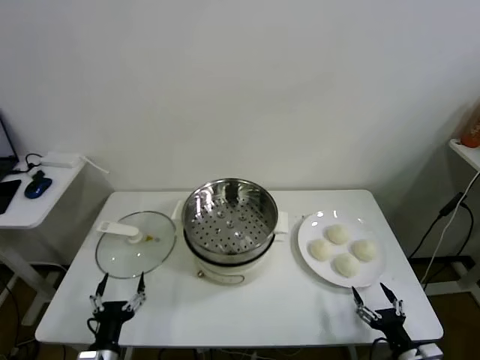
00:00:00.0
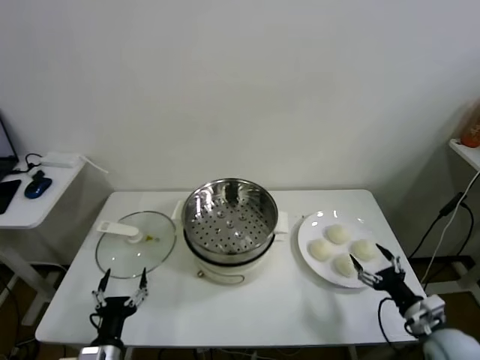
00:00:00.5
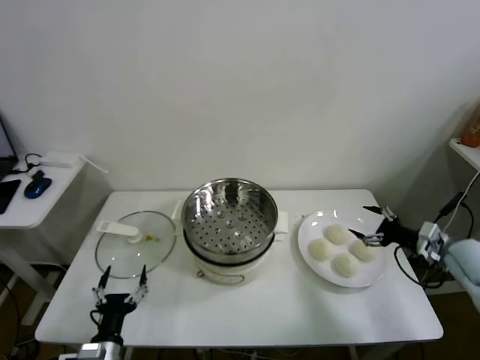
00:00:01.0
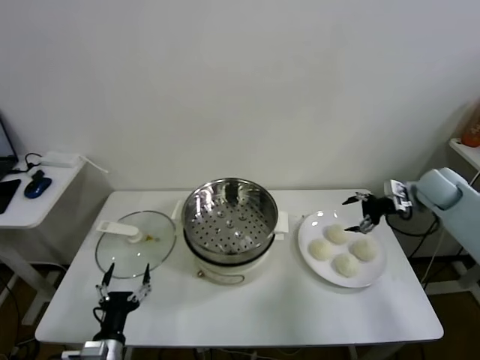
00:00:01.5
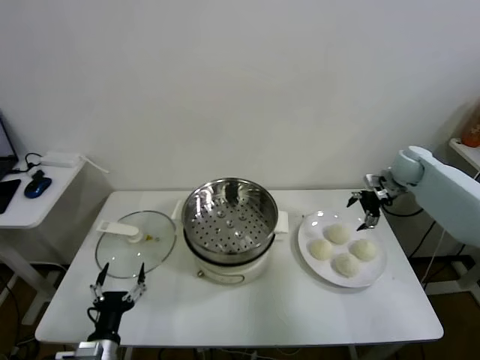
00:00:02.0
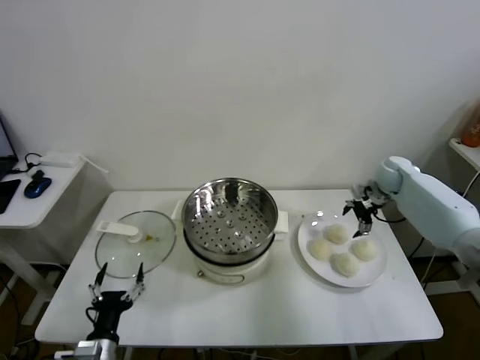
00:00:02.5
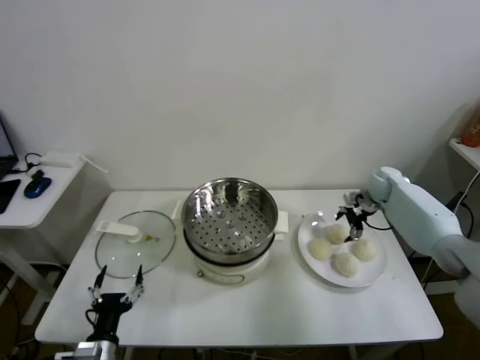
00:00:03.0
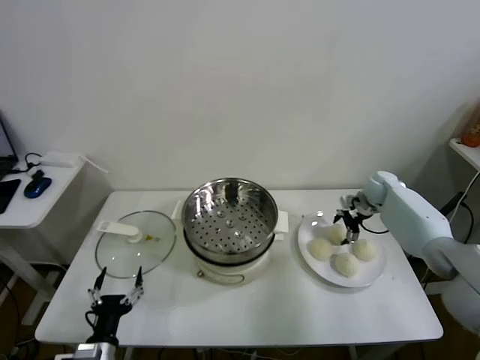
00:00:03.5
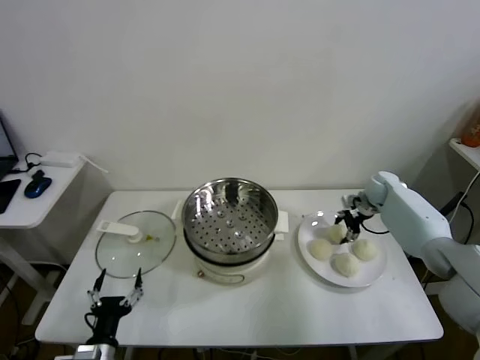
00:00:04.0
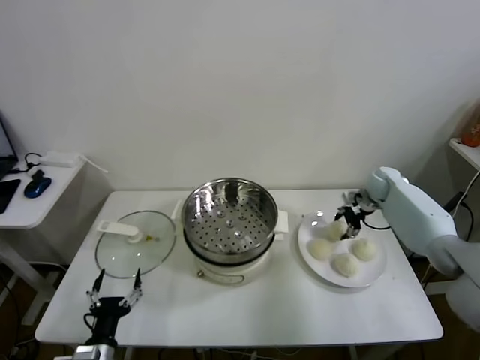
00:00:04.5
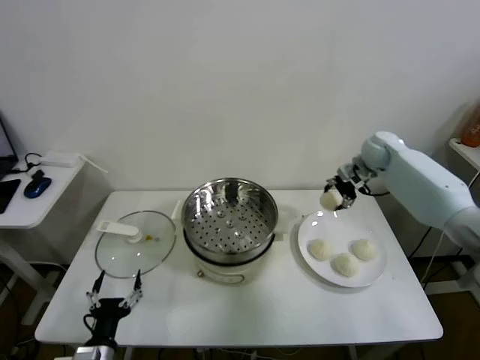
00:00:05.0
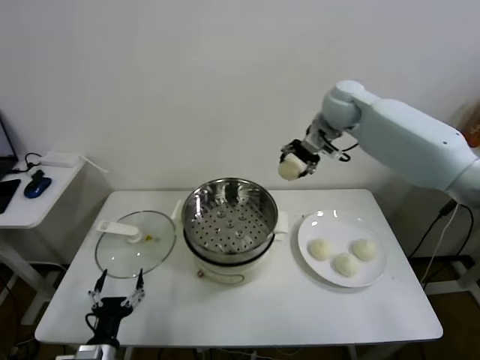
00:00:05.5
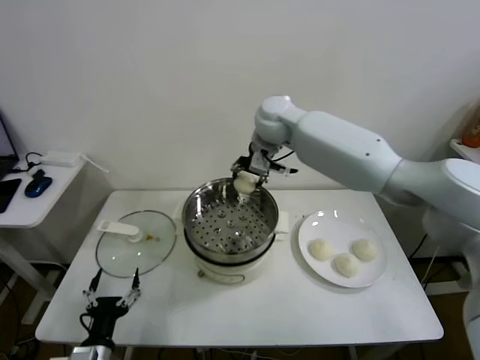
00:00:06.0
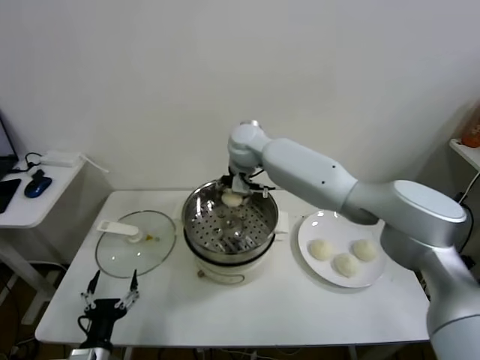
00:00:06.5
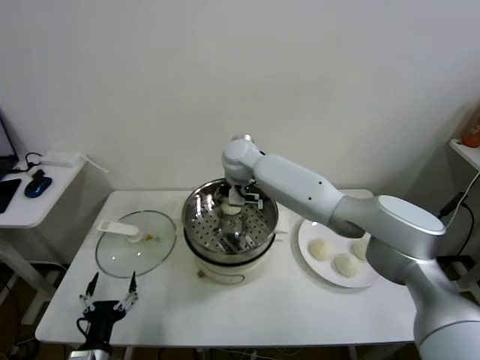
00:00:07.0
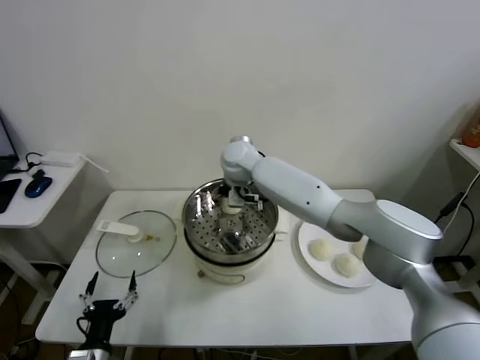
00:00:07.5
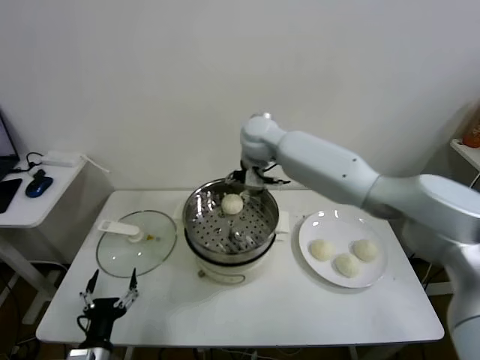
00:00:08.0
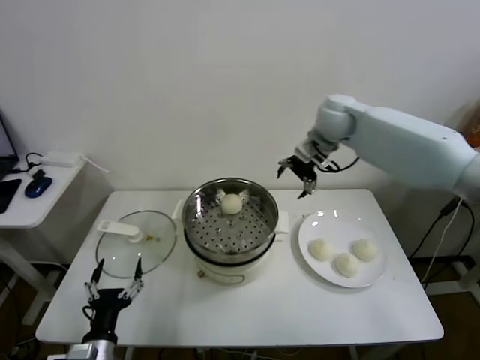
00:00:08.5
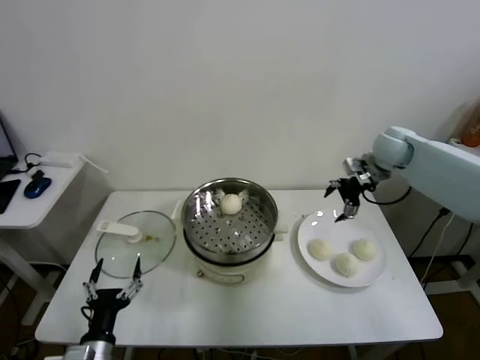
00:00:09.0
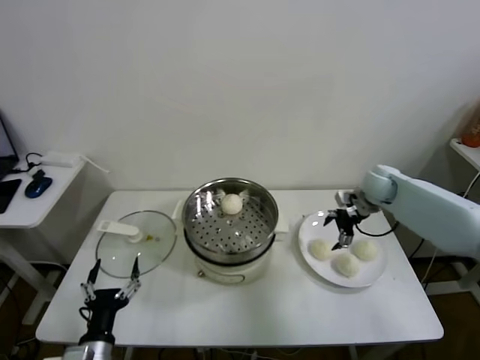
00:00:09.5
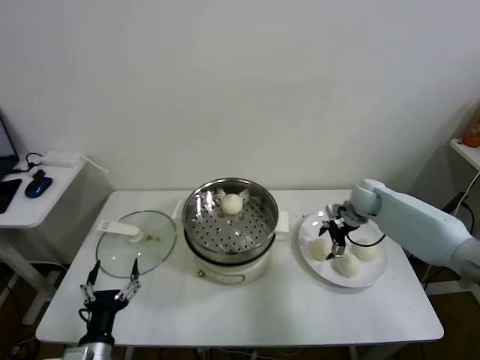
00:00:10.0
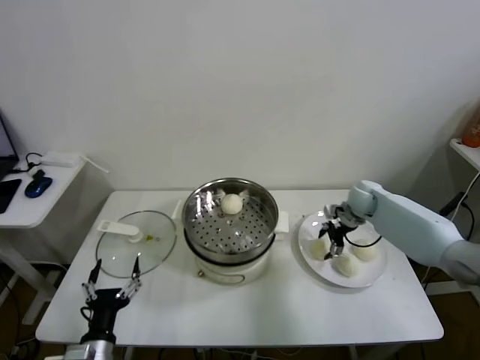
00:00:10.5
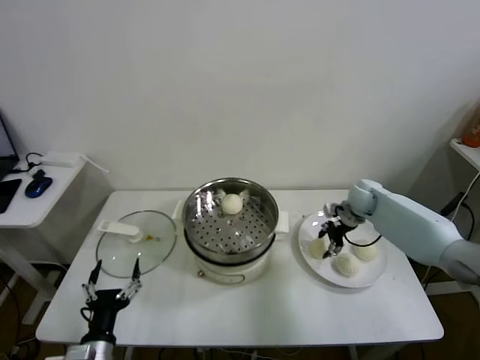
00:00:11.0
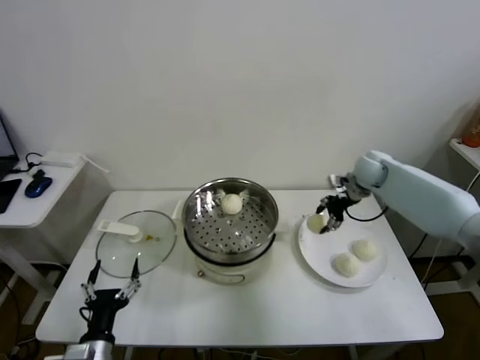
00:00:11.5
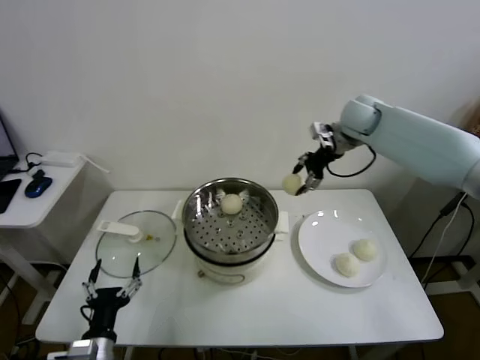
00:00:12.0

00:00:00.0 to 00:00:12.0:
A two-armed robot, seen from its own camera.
Task of the whole recording: take steamed baozi put them in steamer.
Step, 00:00:00.0 to 00:00:04.0: Grasp the baozi in the plate with right gripper.
Step, 00:00:04.5 to 00:00:07.5: Place the baozi on the steamer with right gripper.
Step, 00:00:08.0 to 00:00:10.5: Grasp the baozi in the plate with right gripper.
00:00:02.0 to 00:00:04.0: The right gripper heads downward, covering approximately 10 cm, and closes up.
00:00:04.0 to 00:00:06.0: The right gripper heads to the left and upward, covering some 40 cm.
00:00:06.0 to 00:00:08.0: The right gripper moves some 10 cm downward and comes back, and opens up.
00:00:08.0 to 00:00:10.0: The right gripper goes approximately 35 cm to the right and downward.
00:00:10.0 to 00:00:12.0: The right gripper heads upward, covering some 25 cm, and closes its fingers.

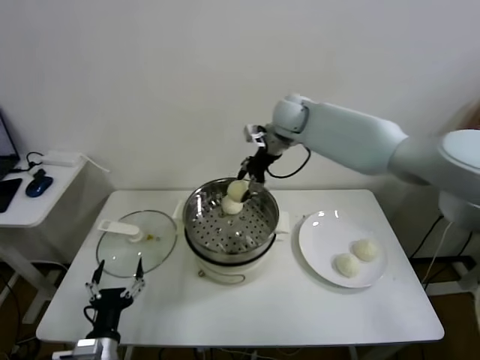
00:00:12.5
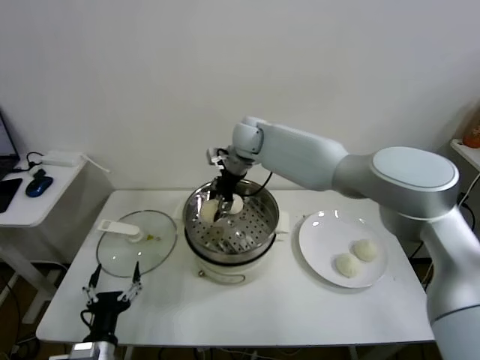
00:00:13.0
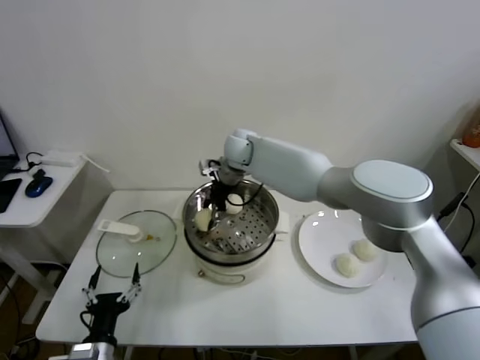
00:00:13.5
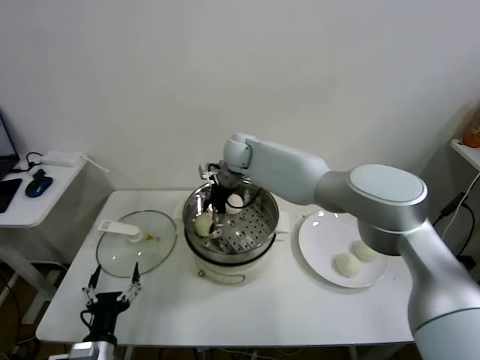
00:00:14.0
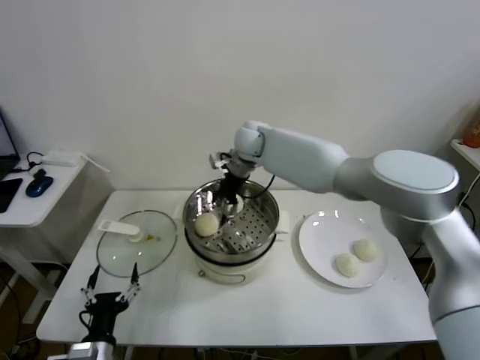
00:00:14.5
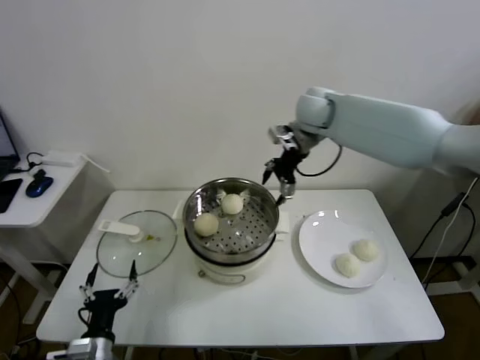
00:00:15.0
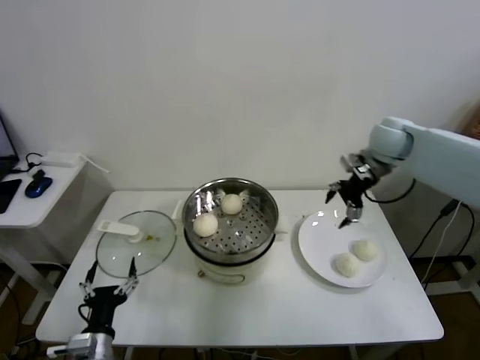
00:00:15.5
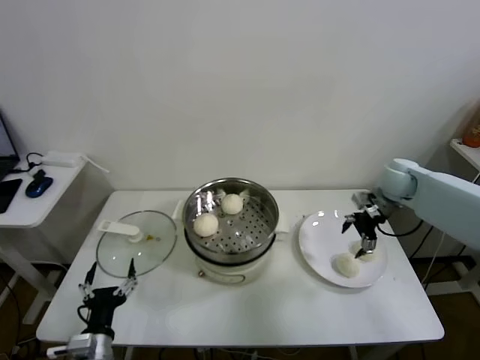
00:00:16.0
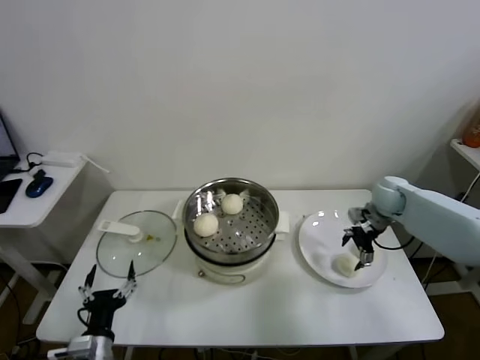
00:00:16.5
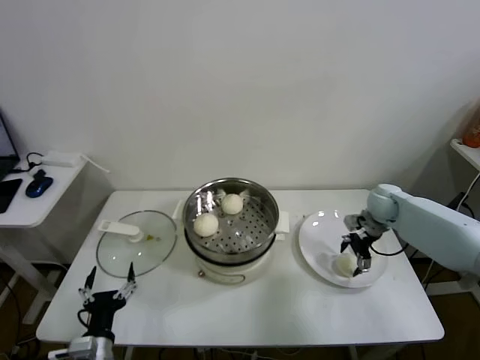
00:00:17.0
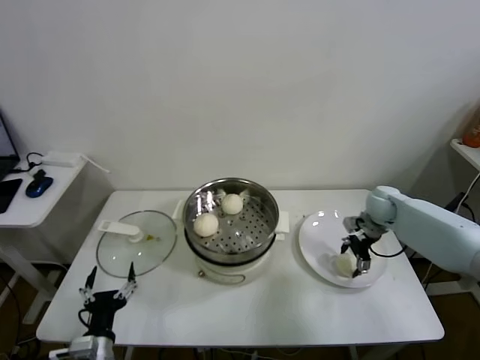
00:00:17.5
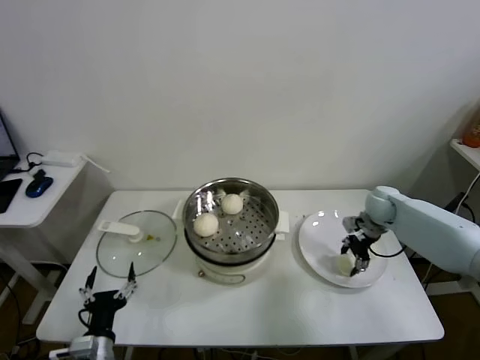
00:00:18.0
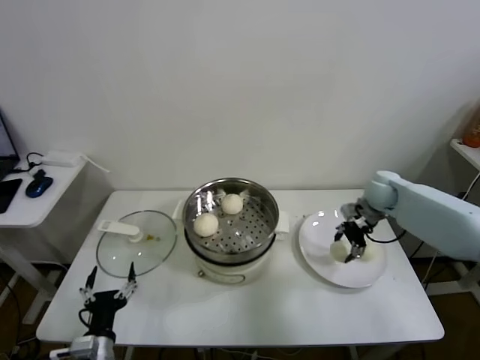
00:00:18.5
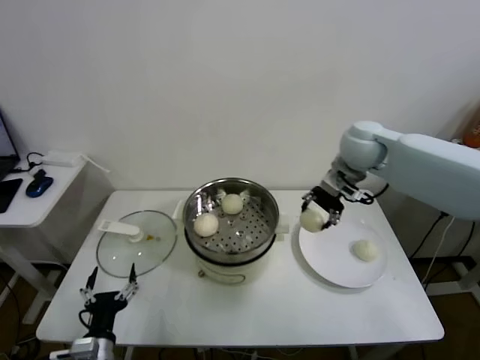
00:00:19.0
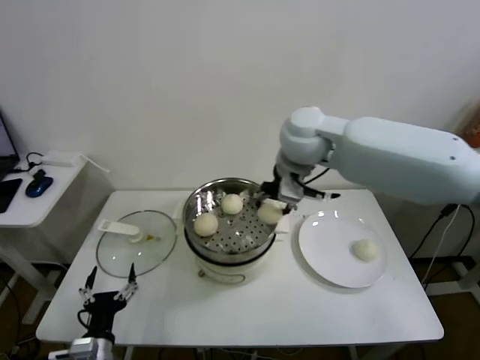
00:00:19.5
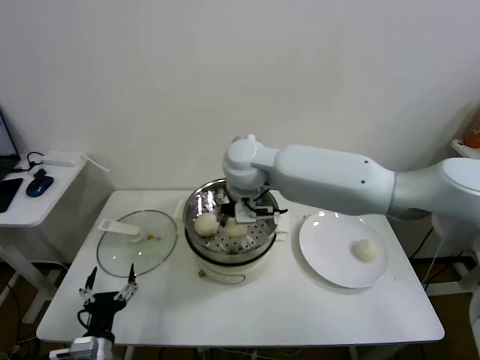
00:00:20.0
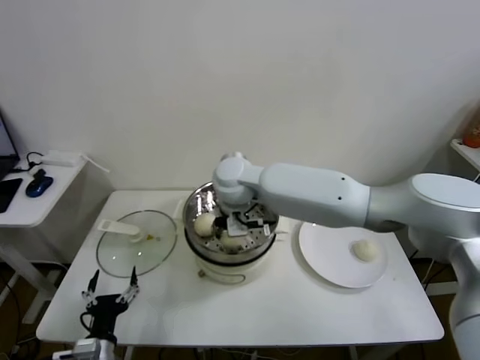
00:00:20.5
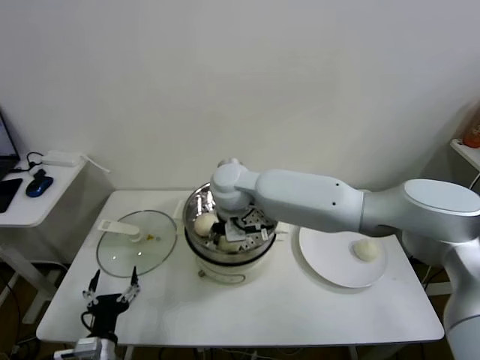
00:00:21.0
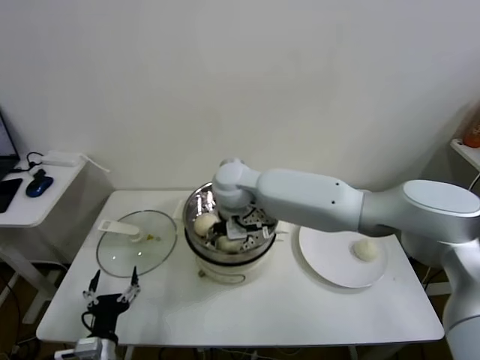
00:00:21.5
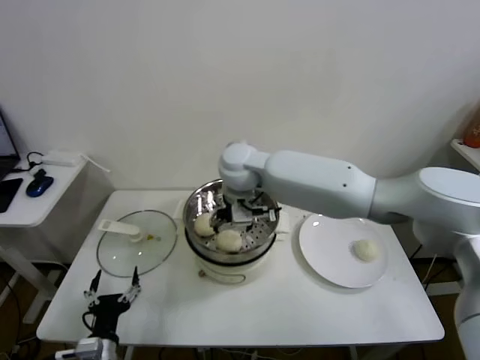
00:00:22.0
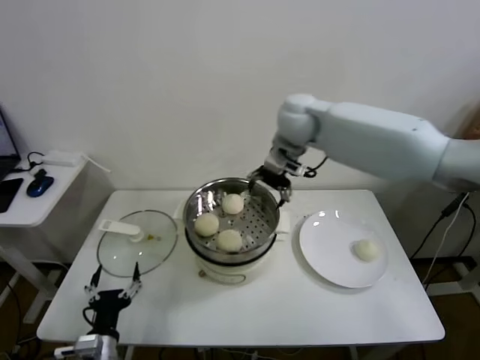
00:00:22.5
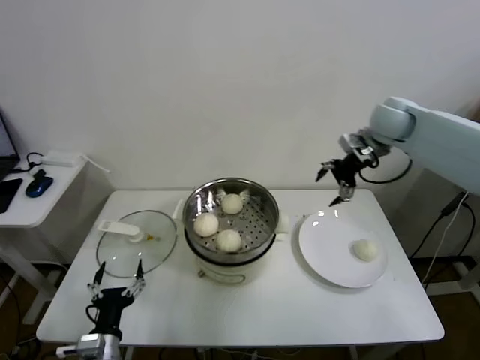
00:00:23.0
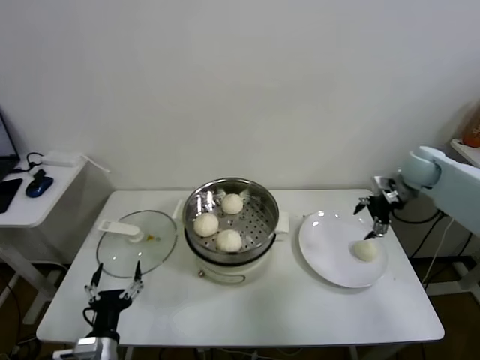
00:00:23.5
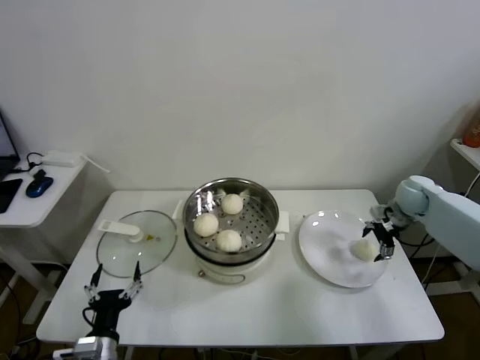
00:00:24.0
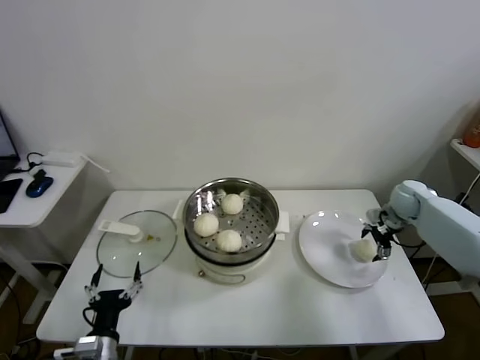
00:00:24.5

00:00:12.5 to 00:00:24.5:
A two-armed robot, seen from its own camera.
Task of the whole recording: take steamed baozi put them in steamer.
Step, 00:00:14.5 to 00:00:18.0: Grasp the baozi in the plate with right gripper.
Step, 00:00:18.5 to 00:00:21.5: Place the baozi on the steamer with right gripper.
00:00:12.5 to 00:00:14.5: The right gripper heads to the left, covering roughly 5 cm, and opens up.
00:00:14.5 to 00:00:16.5: The right gripper goes about 40 cm to the right and downward.
00:00:16.5 to 00:00:18.5: The right gripper closes its fingers.
00:00:18.5 to 00:00:20.5: The right gripper is displaced to the left by roughly 40 cm.
00:00:20.5 to 00:00:22.5: The right gripper heads to the right, upward and forward, covering some 20 cm, and opens up.
00:00:22.5 to 00:00:24.5: The right gripper travels to the right and downward by some 40 cm.

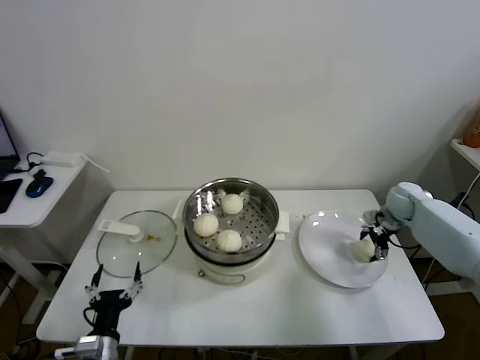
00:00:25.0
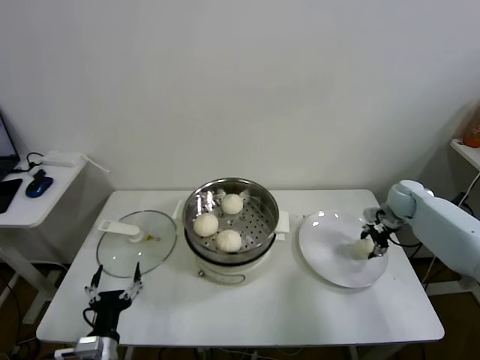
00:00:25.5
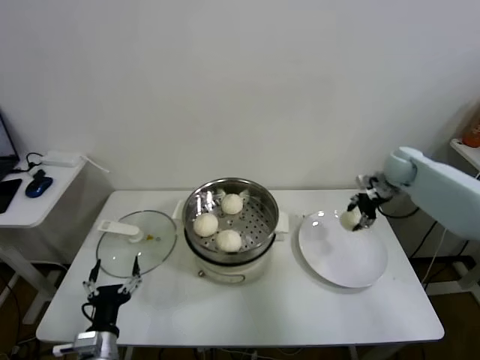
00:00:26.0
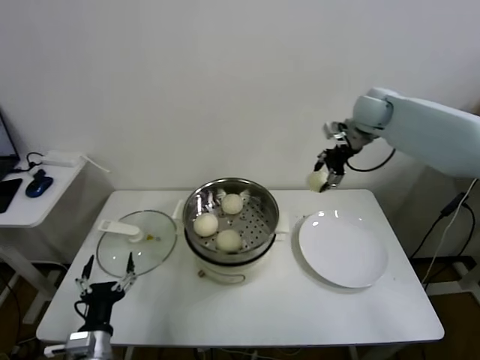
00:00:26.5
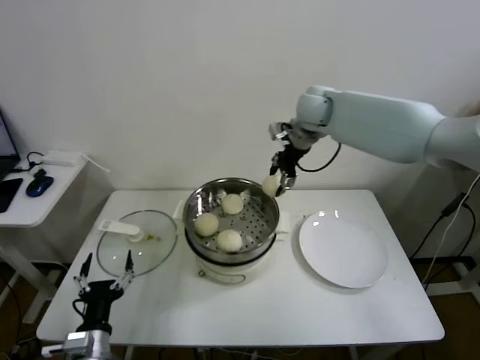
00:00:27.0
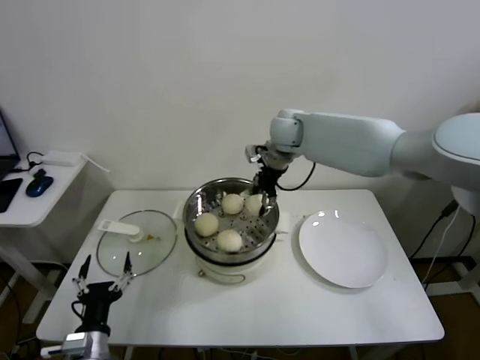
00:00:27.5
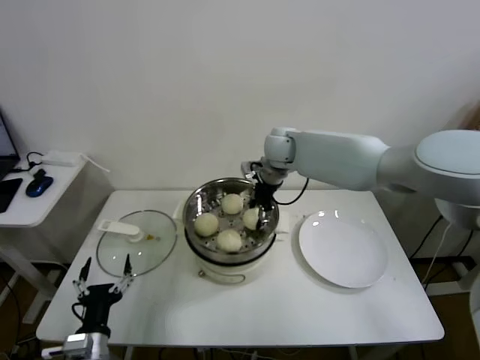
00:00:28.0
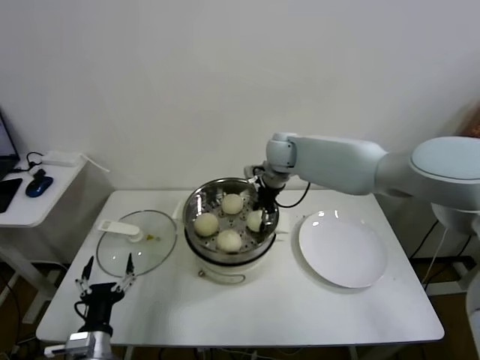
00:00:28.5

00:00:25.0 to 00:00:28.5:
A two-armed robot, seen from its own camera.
Task of the whole recording: take steamed baozi put them in steamer.
00:00:25.0 to 00:00:27.0: The right gripper heads to the left and upward, covering about 35 cm, and closes its fingers.
00:00:27.0 to 00:00:28.5: The right gripper moves downward and to the left, some 15 cm.
